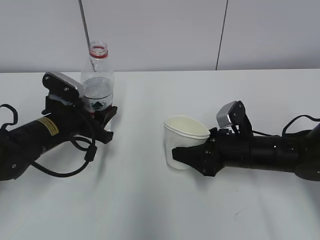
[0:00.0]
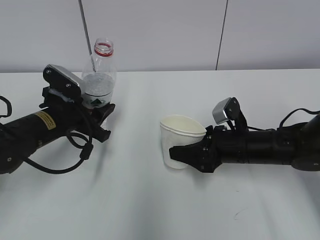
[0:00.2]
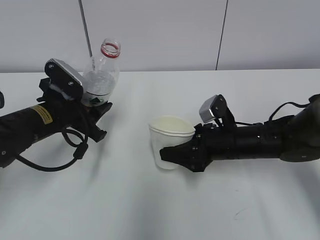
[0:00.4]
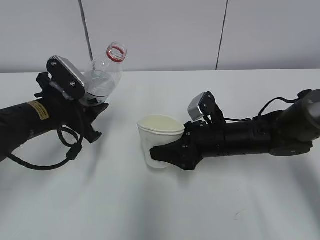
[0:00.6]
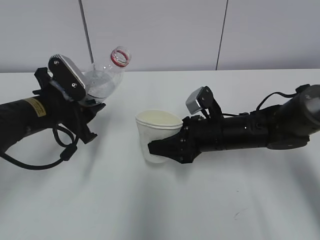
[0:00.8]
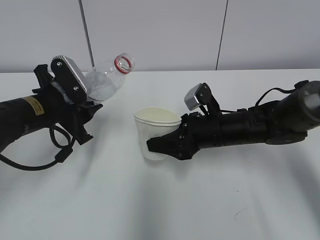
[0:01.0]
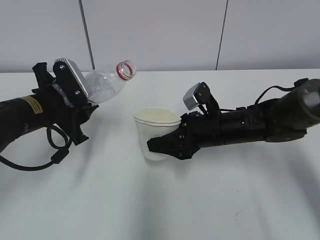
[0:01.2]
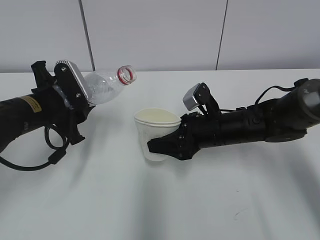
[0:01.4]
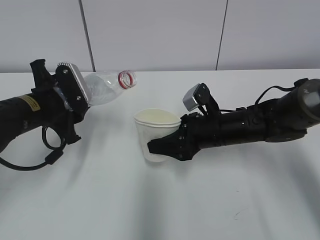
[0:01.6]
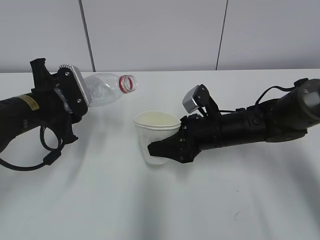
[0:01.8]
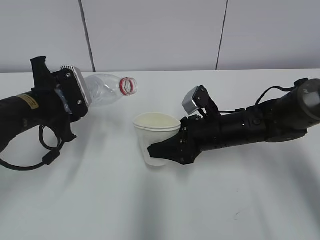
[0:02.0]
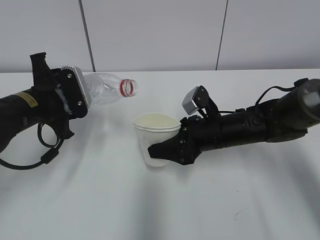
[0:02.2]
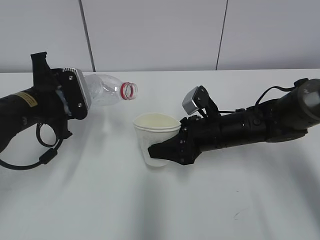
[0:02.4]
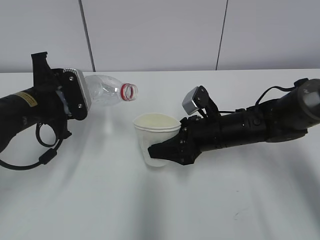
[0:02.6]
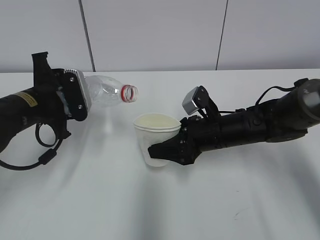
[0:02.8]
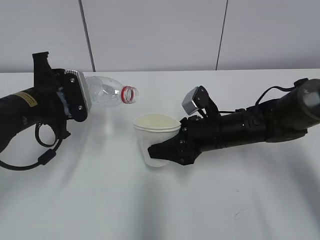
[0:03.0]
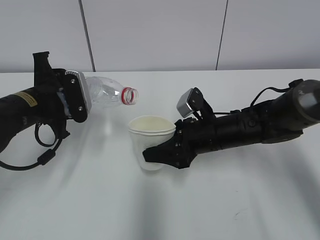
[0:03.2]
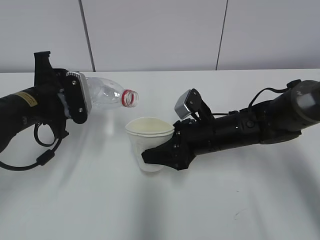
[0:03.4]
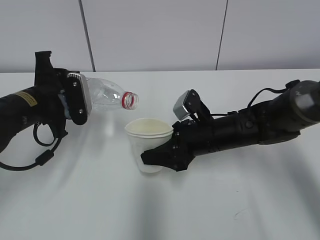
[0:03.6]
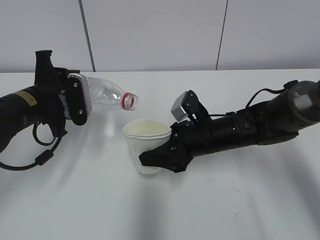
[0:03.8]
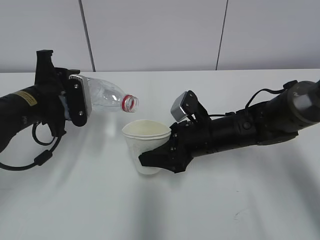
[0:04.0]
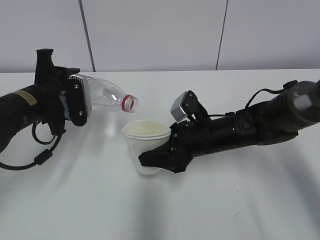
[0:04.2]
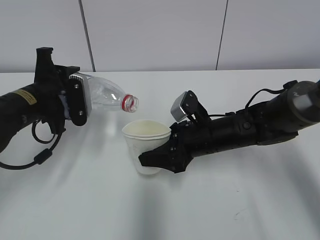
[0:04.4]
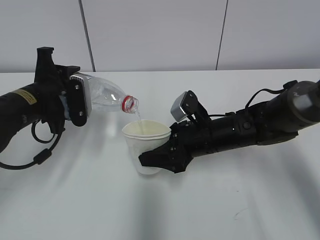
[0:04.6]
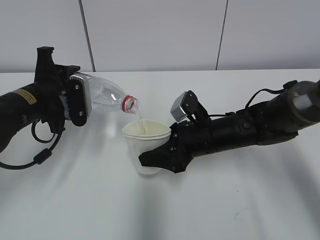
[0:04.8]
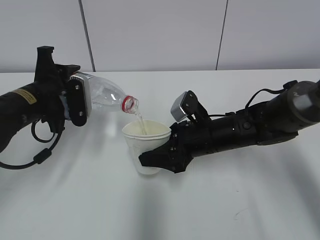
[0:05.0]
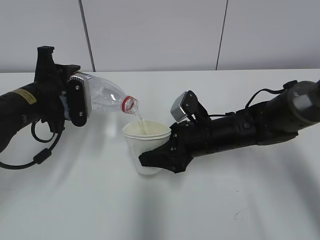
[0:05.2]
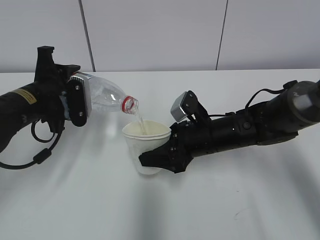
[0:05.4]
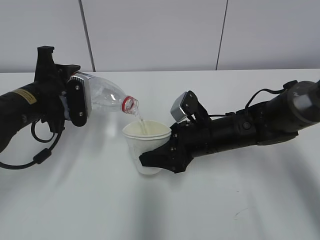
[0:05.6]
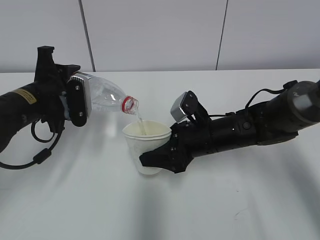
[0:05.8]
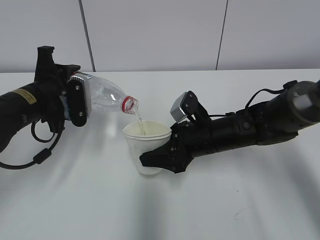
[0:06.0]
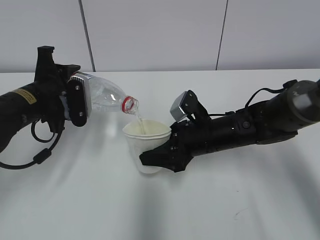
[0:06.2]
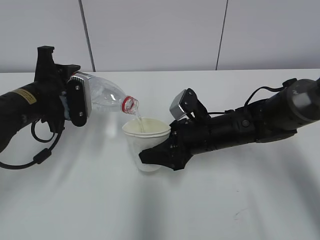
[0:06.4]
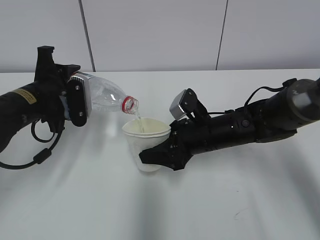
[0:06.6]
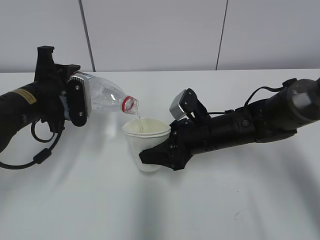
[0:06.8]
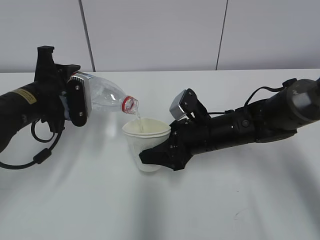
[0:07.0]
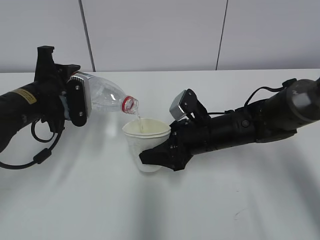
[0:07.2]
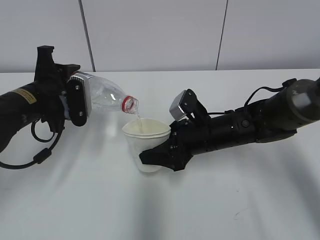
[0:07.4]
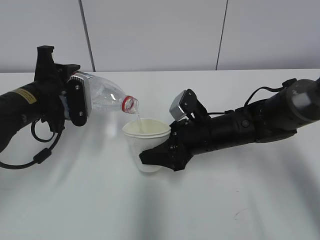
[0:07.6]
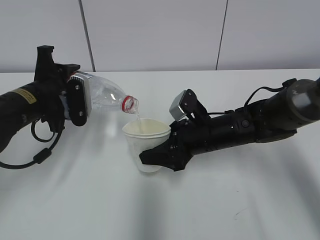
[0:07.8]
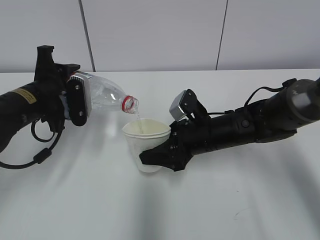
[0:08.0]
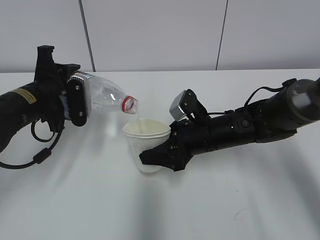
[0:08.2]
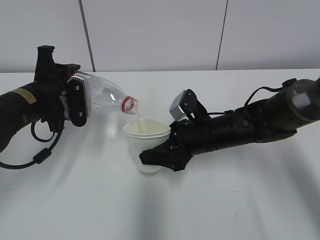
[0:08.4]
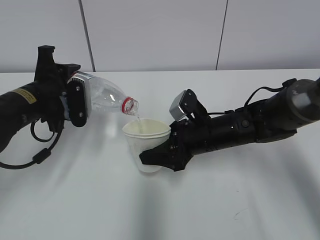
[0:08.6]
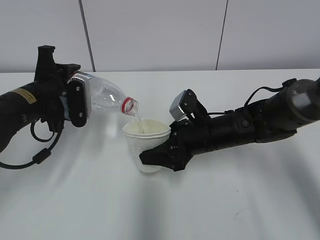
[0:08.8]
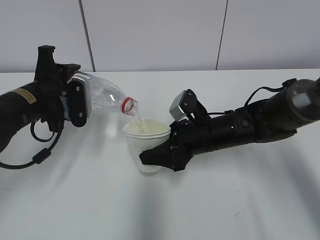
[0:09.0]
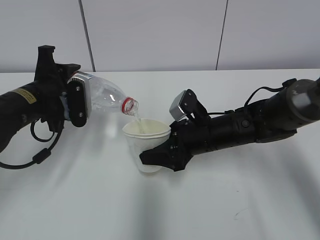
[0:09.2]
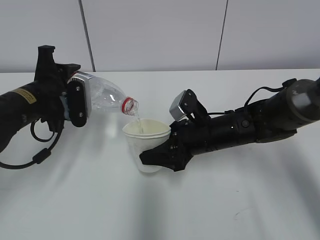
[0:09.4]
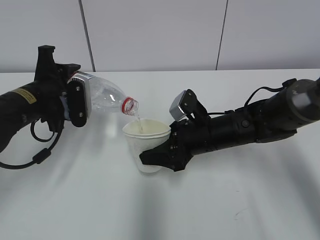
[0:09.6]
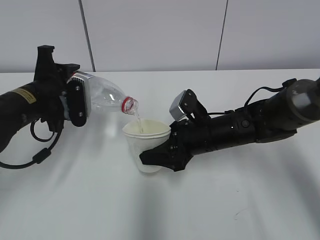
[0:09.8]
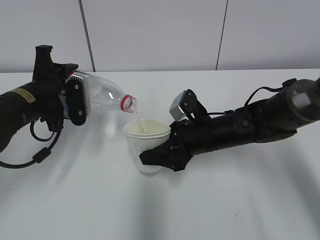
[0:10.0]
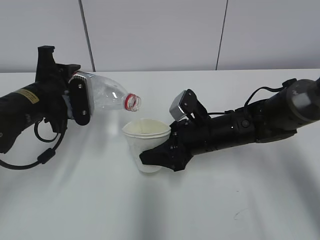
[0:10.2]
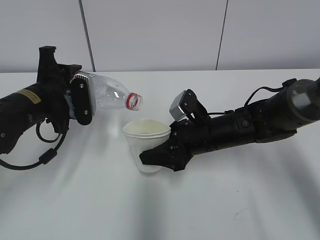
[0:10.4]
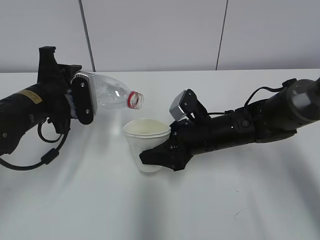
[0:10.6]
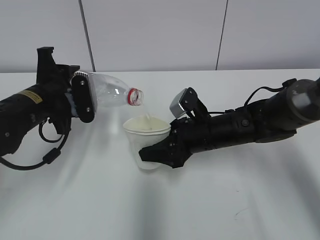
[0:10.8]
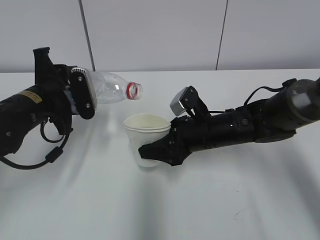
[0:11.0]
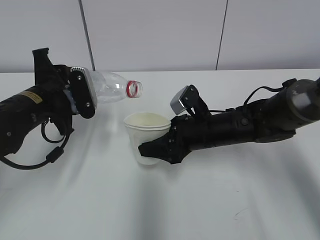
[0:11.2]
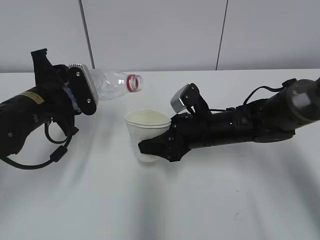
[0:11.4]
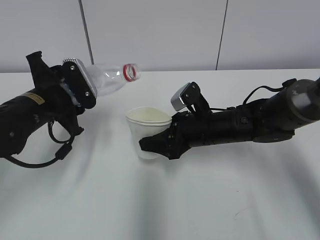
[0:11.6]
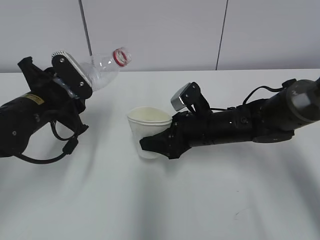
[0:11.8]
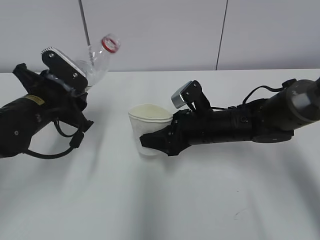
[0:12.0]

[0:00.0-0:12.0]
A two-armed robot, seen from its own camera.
Step, 0:01.8 to 0:06.8: Fill water with the right hand.
Step, 0:01.8 to 0:06.8: Pour water with the left hand.
0:00.0 to 0:01.6: The right gripper ends up about 5 cm from where it was. The left gripper moves about 5 cm.
0:01.6 to 0:03.0: The grippers move only a little.
0:03.0 to 0:04.4: The grippers stay close to where they were, moving slightly.
0:04.4 to 0:10.4: The two grippers keep their place.

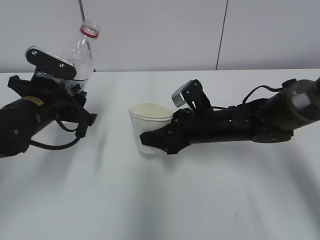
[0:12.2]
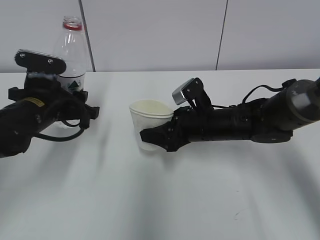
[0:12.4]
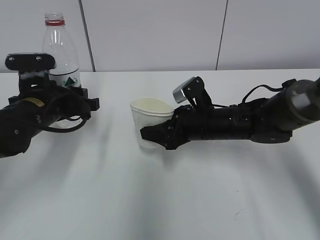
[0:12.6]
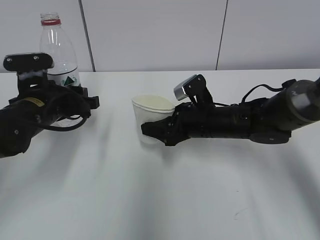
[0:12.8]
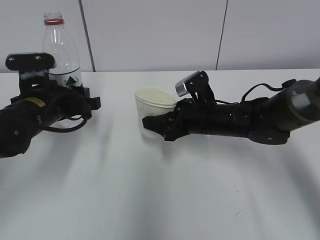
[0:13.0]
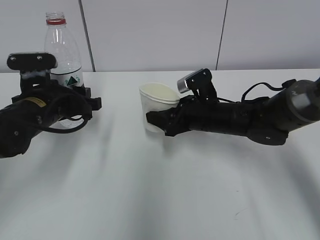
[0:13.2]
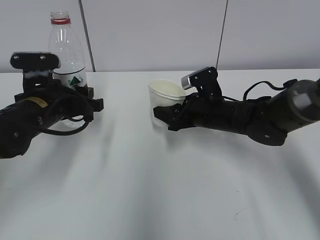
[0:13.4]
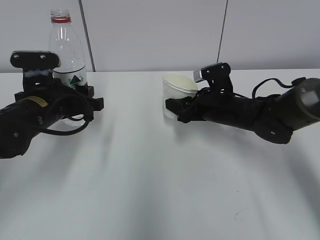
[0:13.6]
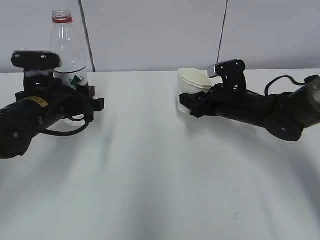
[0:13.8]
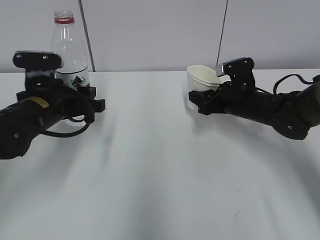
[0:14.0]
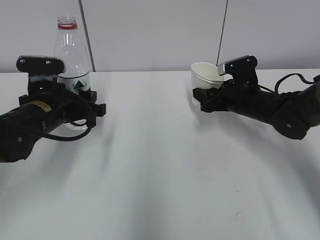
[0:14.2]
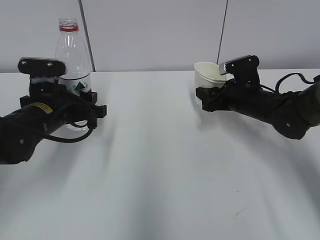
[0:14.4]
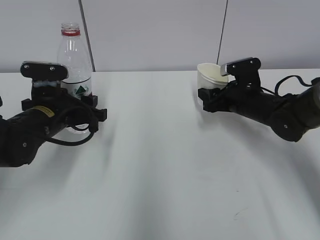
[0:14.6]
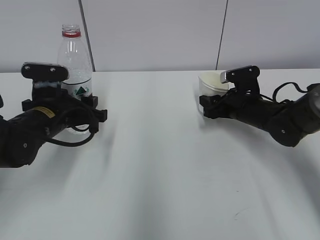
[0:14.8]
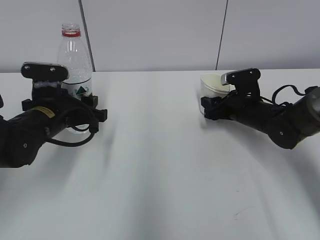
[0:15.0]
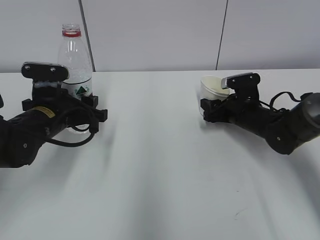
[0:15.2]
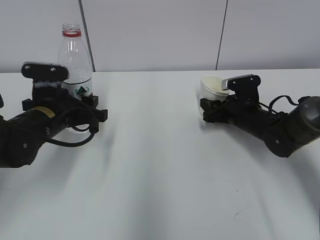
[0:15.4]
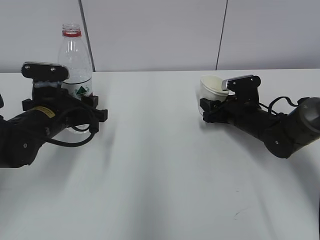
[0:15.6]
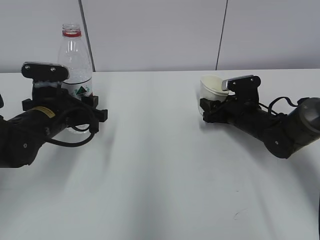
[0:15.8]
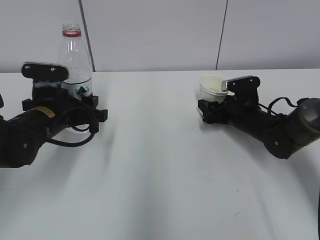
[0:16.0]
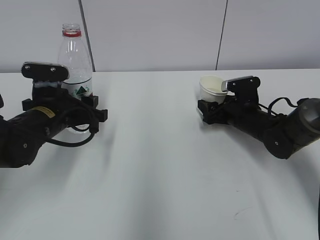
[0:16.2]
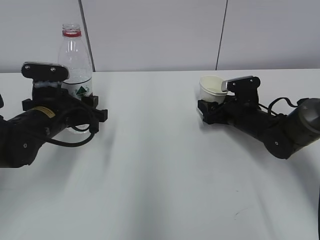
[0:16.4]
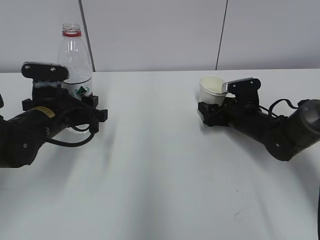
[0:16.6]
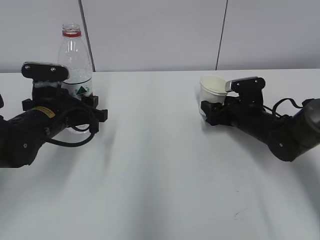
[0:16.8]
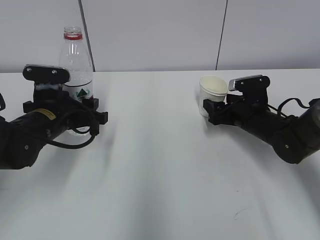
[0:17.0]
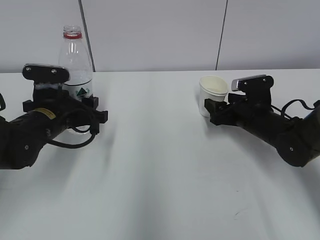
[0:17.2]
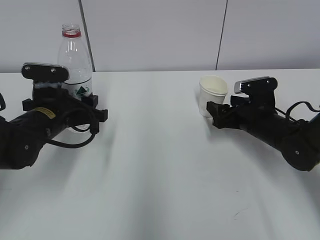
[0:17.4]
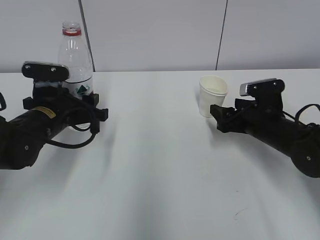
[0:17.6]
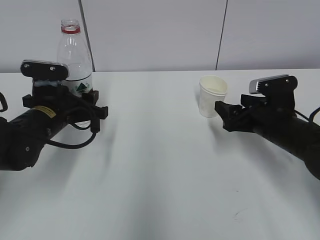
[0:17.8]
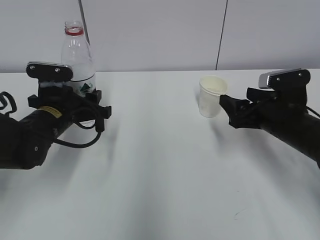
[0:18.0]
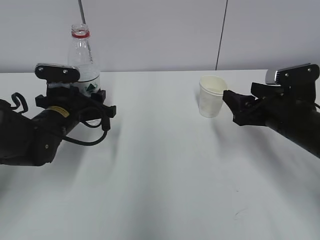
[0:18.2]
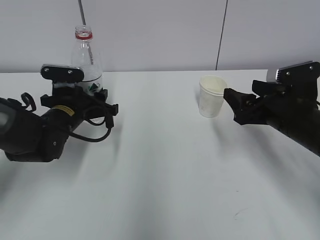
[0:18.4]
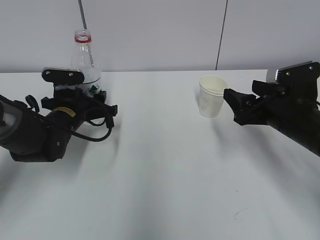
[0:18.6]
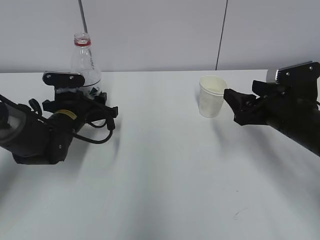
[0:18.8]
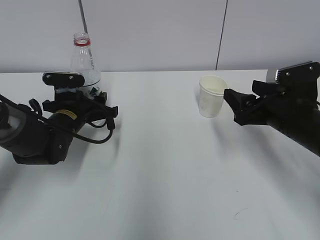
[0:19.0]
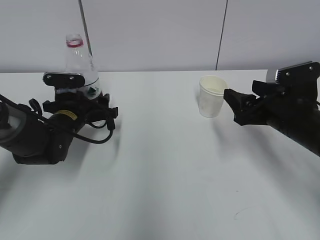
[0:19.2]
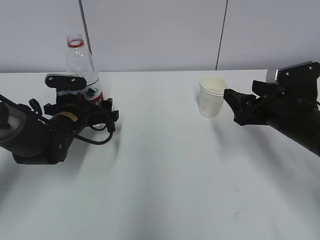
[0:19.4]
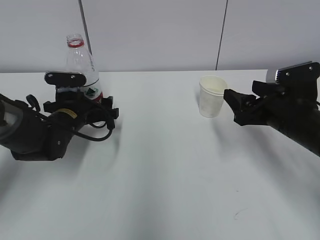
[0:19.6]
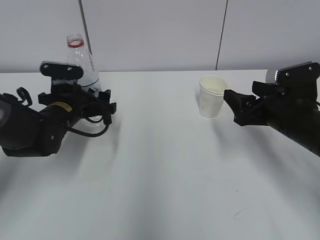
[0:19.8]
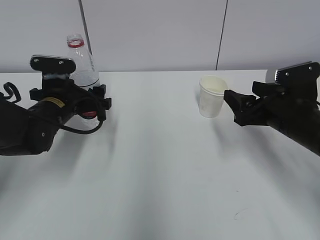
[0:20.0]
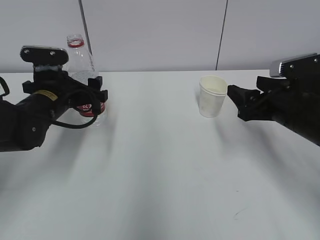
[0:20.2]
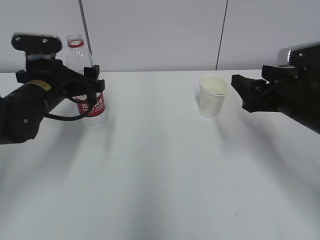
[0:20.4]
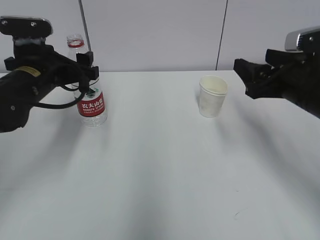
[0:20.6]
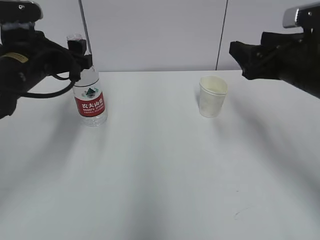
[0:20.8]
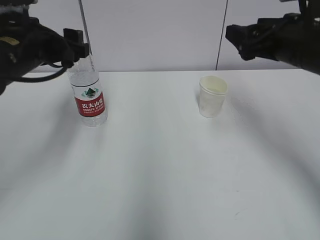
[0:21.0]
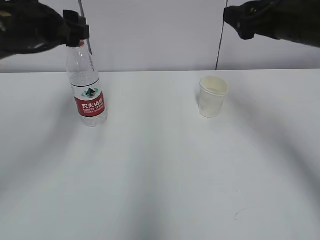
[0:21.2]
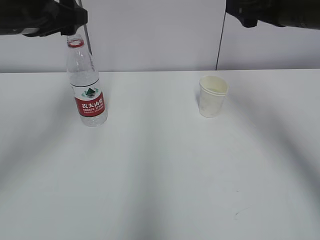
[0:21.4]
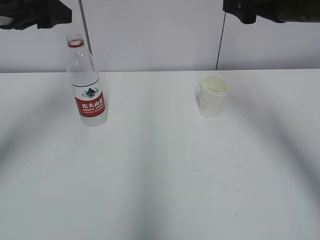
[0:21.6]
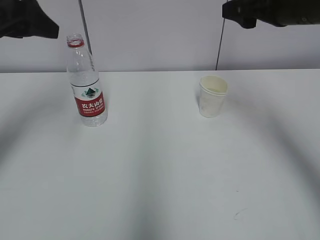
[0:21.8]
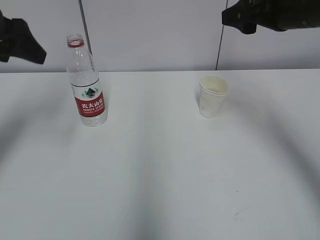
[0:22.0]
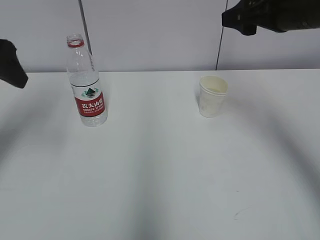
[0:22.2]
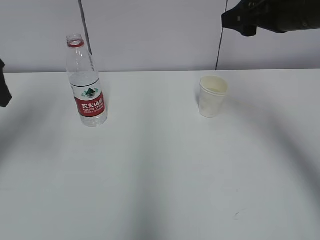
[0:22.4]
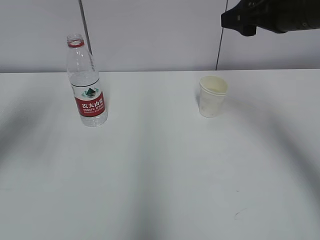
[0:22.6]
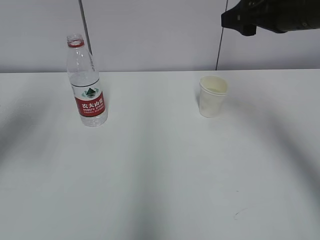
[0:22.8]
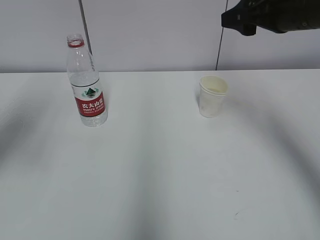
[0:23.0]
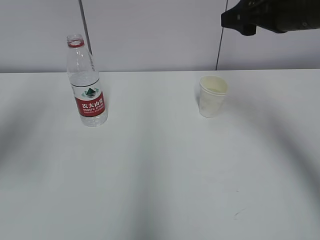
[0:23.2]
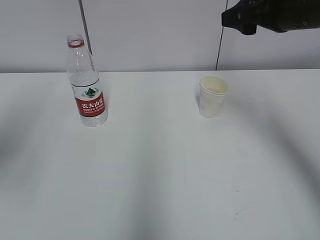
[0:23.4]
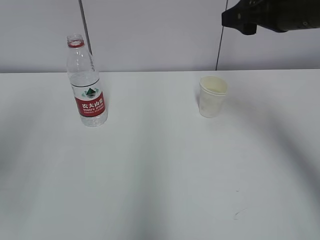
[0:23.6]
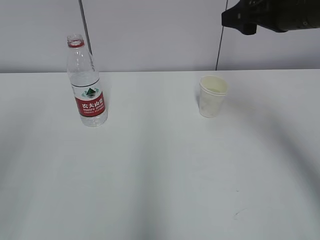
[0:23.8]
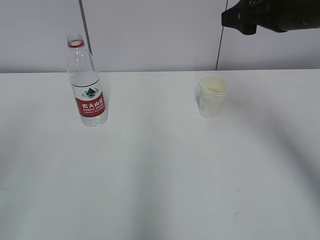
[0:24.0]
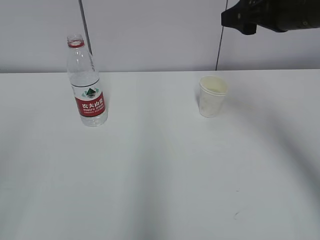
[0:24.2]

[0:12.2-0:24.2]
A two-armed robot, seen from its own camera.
0:12.2 to 0:13.8: The right gripper moves to the right, some 5 cm.
0:13.8 to 0:15.2: The right gripper ends up approximately 5 cm from where it was.
0:15.2 to 0:16.6: The right gripper opens up.
0:16.6 to 0:18.2: The right gripper shifts some 15 cm backward and upward.
0:18.2 to 0:19.8: The left gripper opens its fingers.
0:19.8 to 0:21.2: The grippers both shift upward by roughly 15 cm.
0:21.2 to 0:22.6: The left gripper shifts some 10 cm to the left and backward.
0:22.6 to 0:24.2: The left gripper shifts about 25 cm backward.
